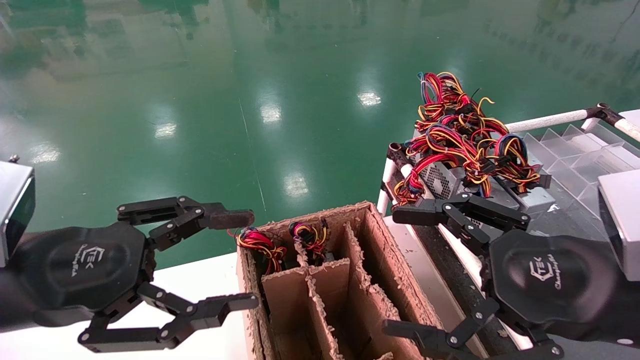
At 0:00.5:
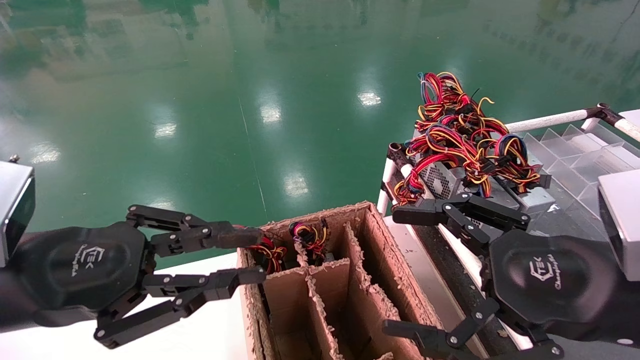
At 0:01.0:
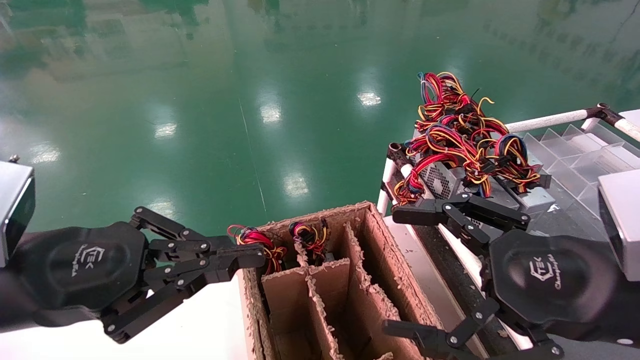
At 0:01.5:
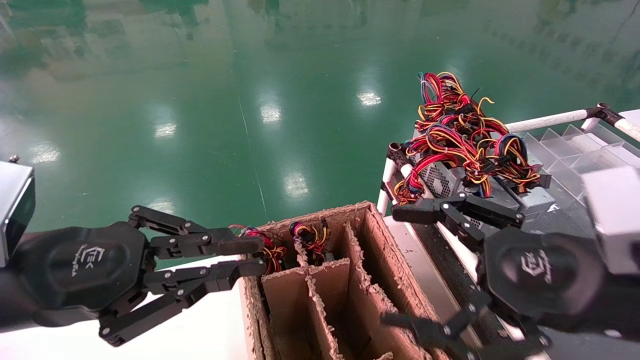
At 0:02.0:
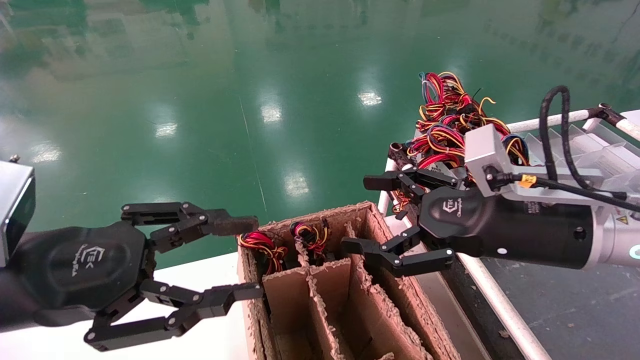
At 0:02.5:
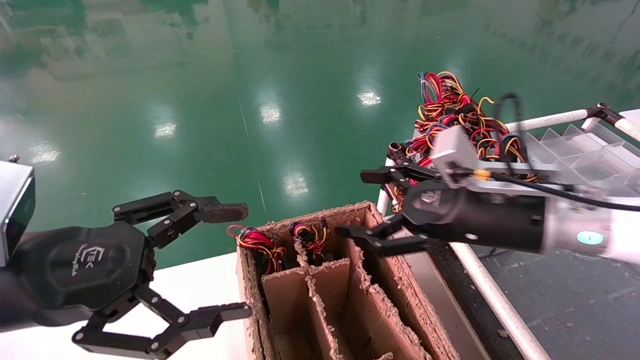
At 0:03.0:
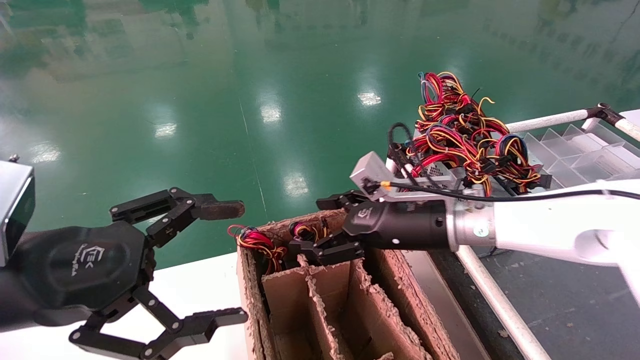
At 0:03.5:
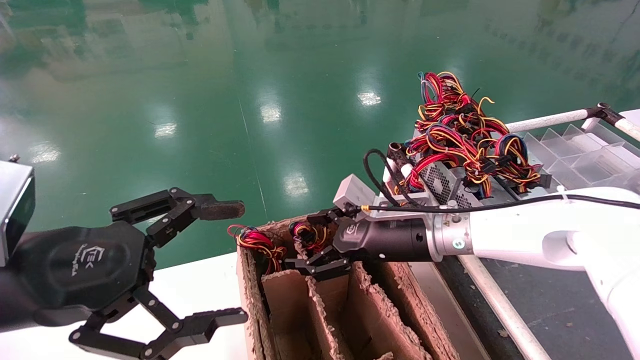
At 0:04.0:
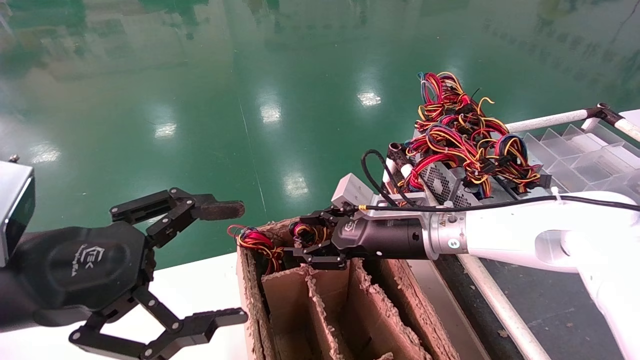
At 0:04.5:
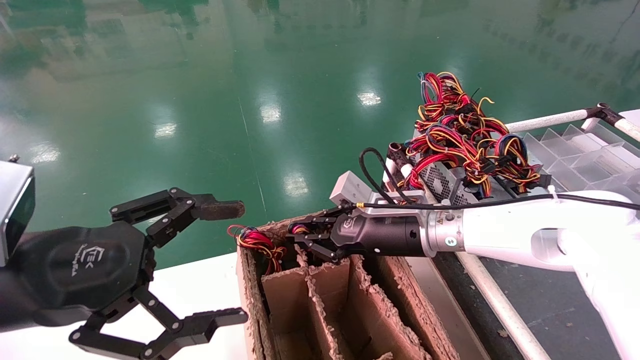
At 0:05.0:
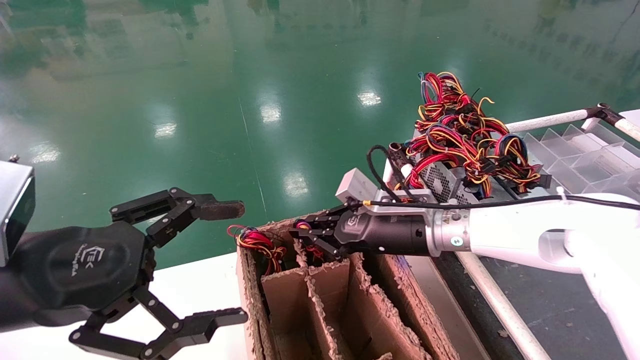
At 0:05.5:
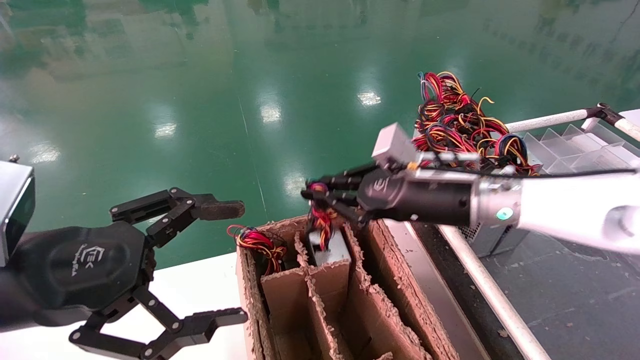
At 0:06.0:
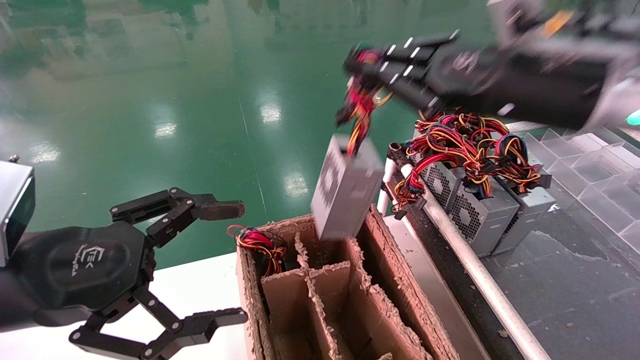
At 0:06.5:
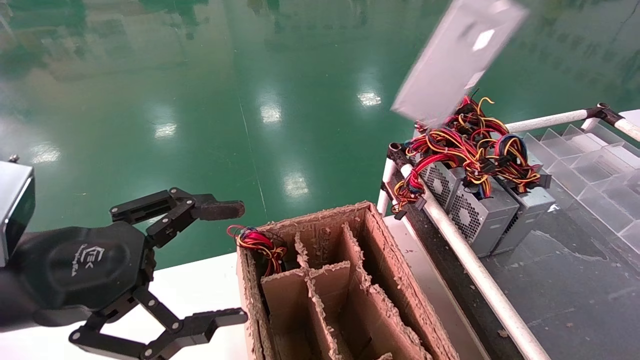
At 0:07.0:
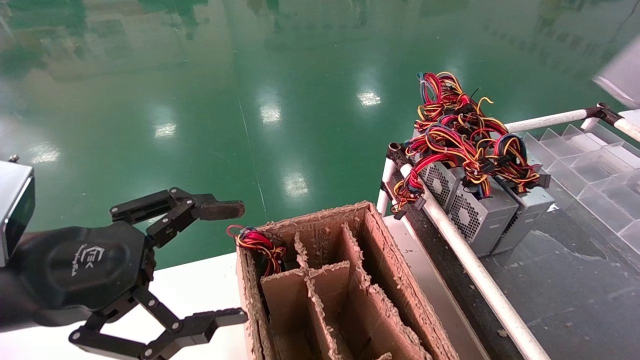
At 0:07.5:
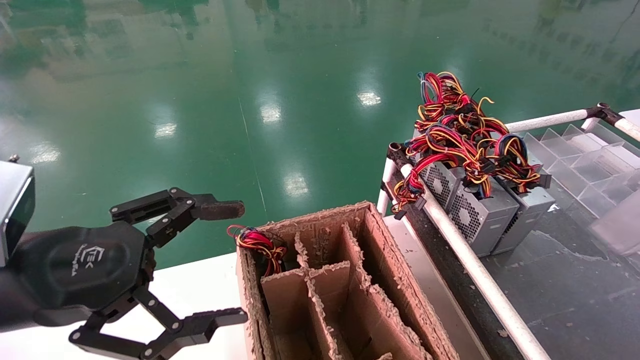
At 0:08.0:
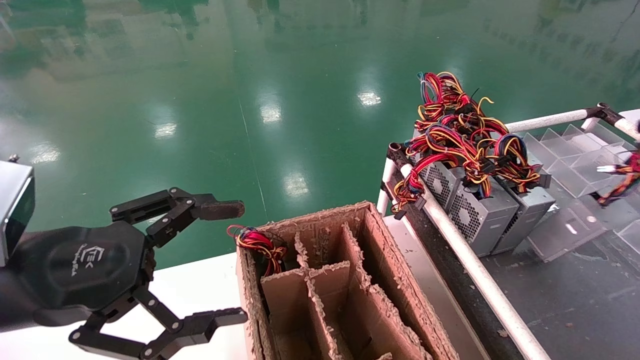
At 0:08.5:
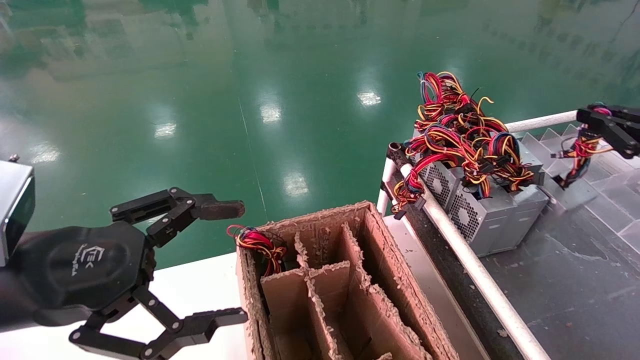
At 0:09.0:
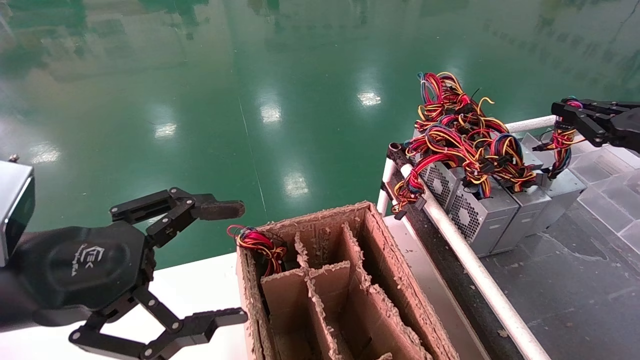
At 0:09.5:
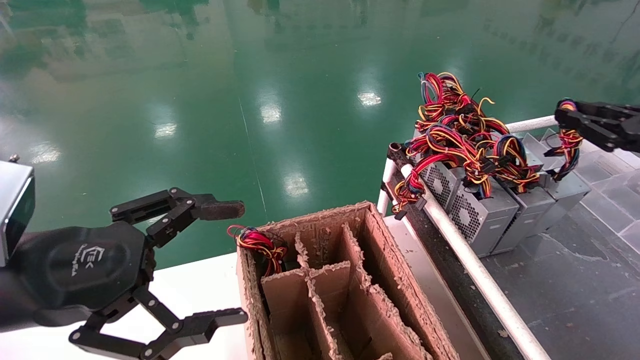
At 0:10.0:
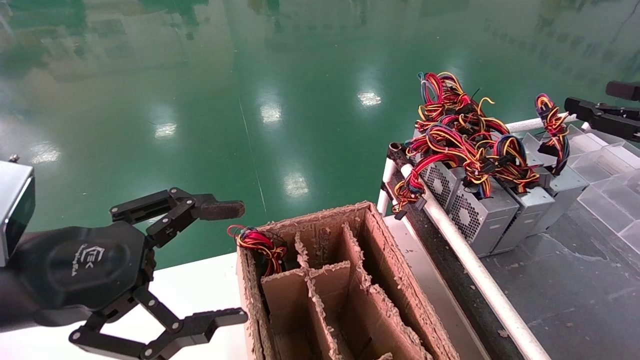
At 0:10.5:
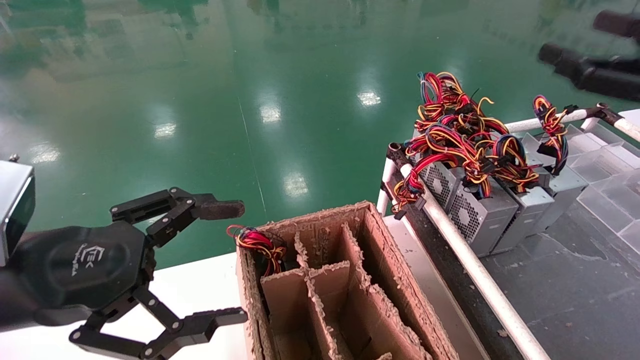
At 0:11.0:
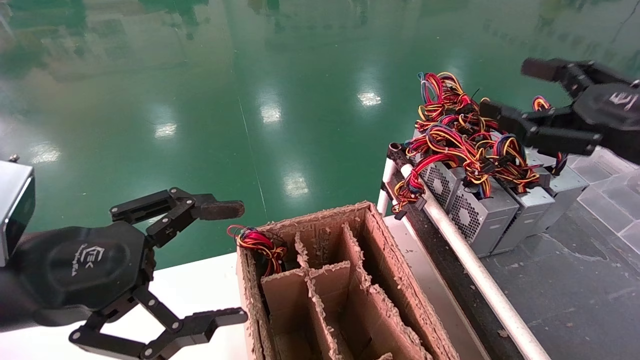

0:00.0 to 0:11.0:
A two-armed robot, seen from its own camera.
Step, 0:01.0 to 0:04.5: Grab and lift the power supply from the large box.
Step, 0:05.0 to 0:09.0: Place the power supply on the operating table.
0:00.0 to 0:02.0: The right gripper shifts approximately 10 cm forward. The left gripper closes, then reopens.
0:02.0 to 0:03.5: The left gripper opens. The right gripper goes approximately 20 cm forward, to the left and downward.
0:03.5 to 0:05.5: The right gripper moves upward, roughly 5 cm, and closes its fingers.
0:05.5 to 0:07.5: The right gripper is displaced to the right and backward by some 40 cm.
0:07.5 to 0:09.0: The right gripper is displaced forward and downward by about 15 cm.
0:09.0 to 0:11.0: The right gripper shifts approximately 10 cm to the left and backward, and opens up.
